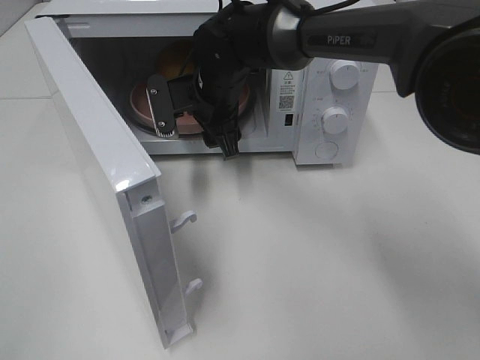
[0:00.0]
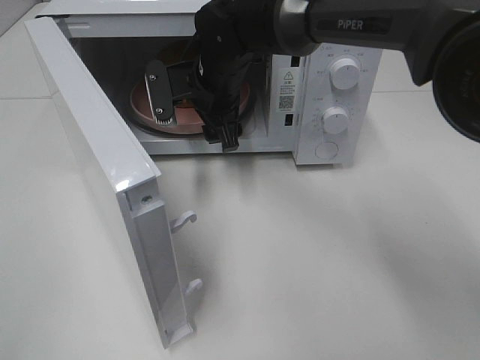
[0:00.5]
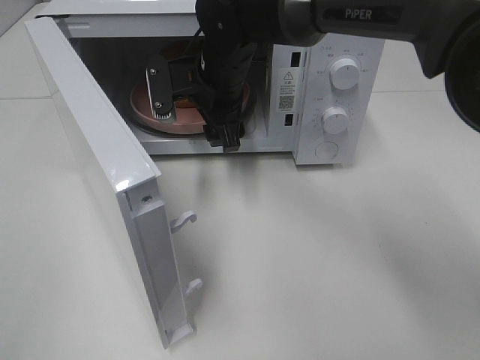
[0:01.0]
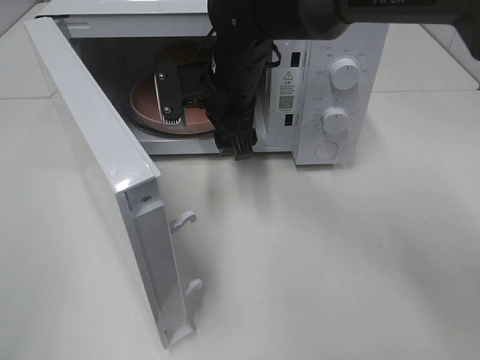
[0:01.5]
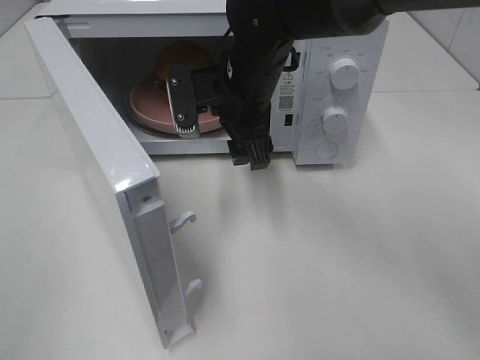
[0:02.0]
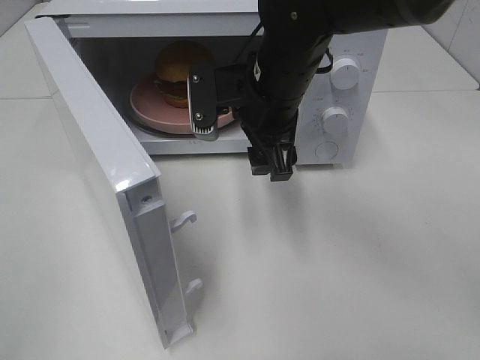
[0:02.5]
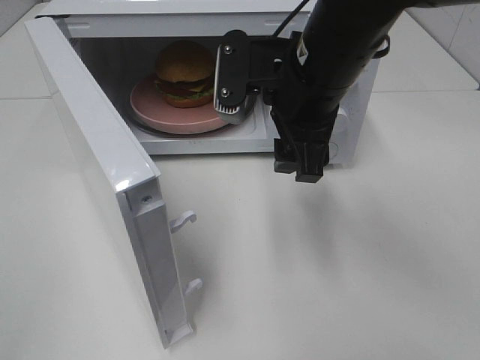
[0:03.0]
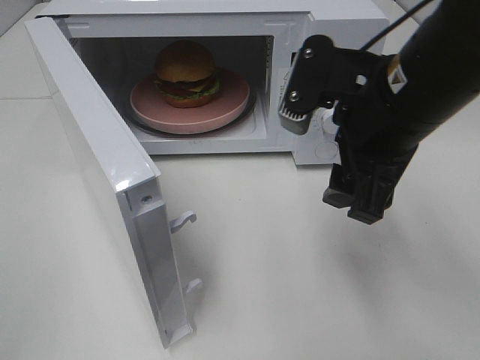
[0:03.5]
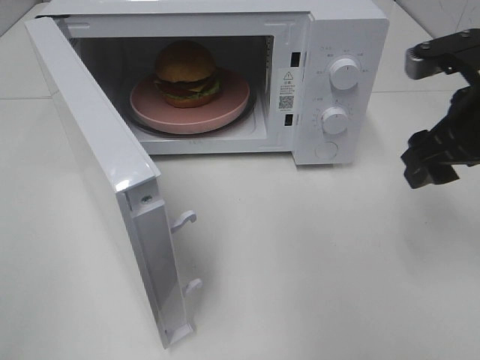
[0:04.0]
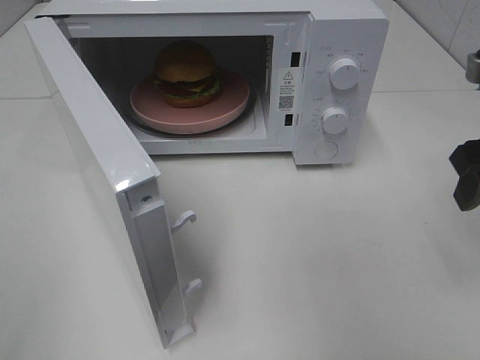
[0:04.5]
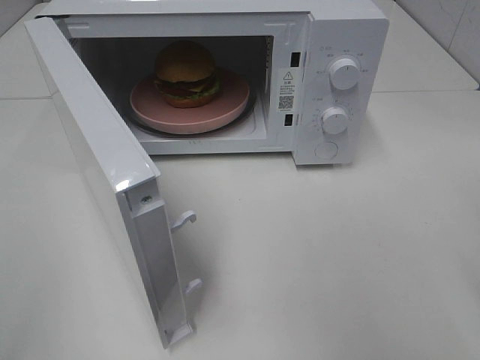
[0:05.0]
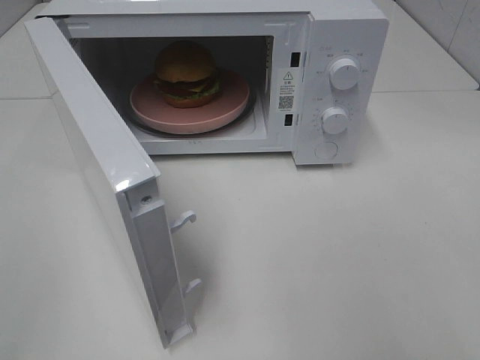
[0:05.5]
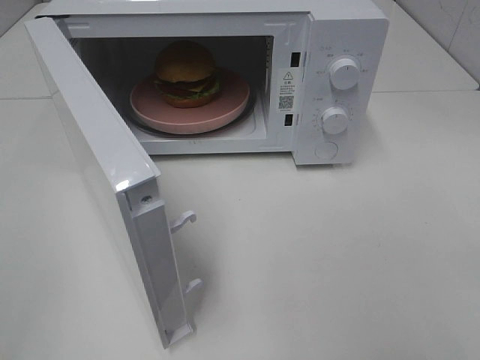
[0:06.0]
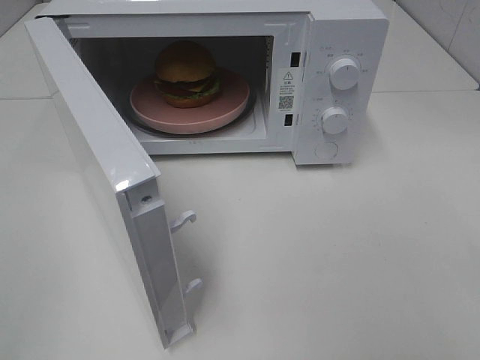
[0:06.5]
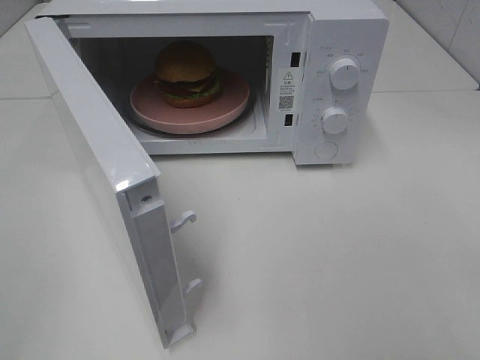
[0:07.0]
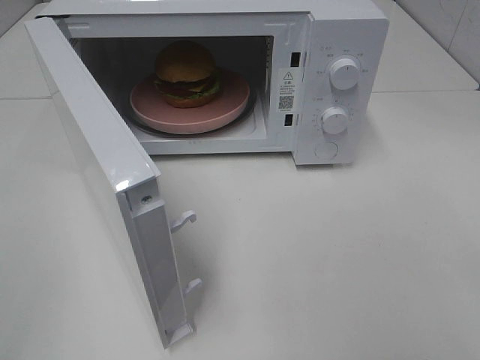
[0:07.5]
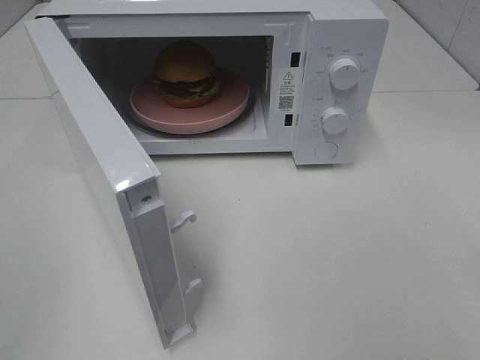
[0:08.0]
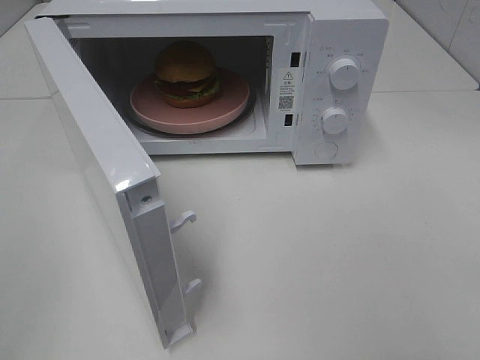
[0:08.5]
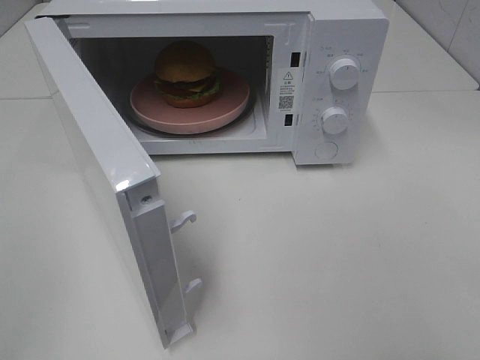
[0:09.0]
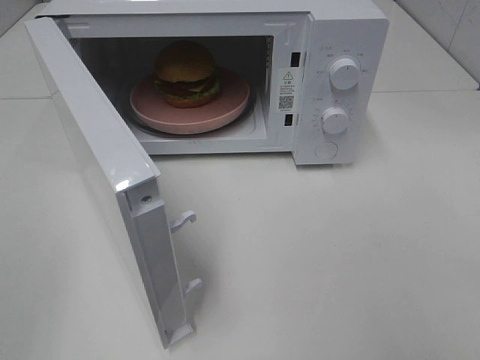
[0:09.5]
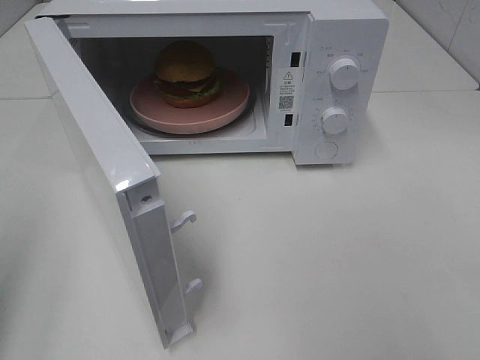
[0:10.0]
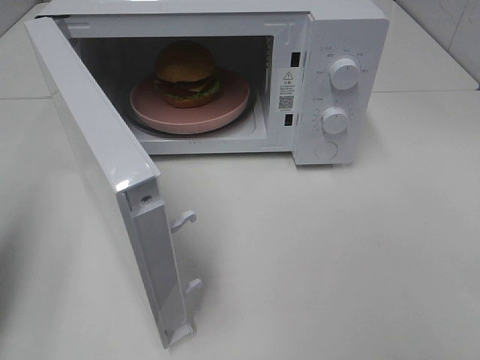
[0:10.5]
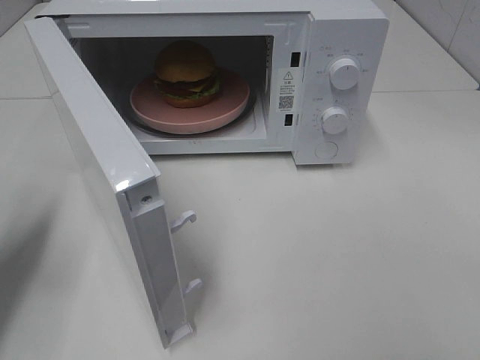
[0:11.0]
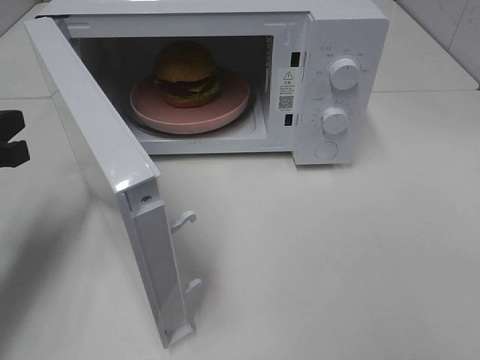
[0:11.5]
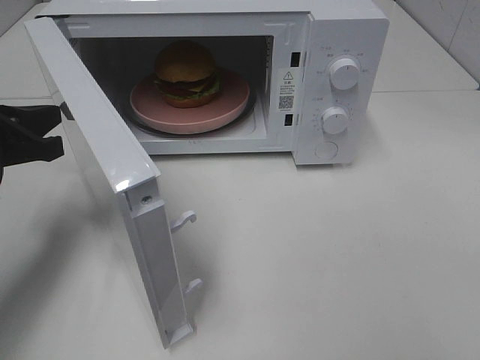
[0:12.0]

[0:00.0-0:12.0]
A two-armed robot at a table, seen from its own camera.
Task of the whole recording: Heat the burger.
0:00.0 to 0:02.0: The right gripper travels backward by roughly 5 cm.
0:02.0 to 0:04.0: The right gripper travels to the right and backward by some 25 cm.
0:04.0 to 0:06.0: The right gripper heads backward, covering roughly 25 cm.
0:10.0 to 0:12.0: The left gripper shifts approximately 20 cm forward and downward.

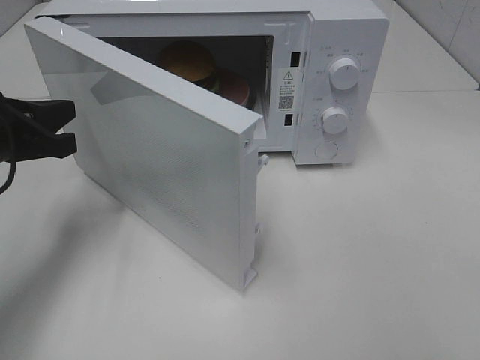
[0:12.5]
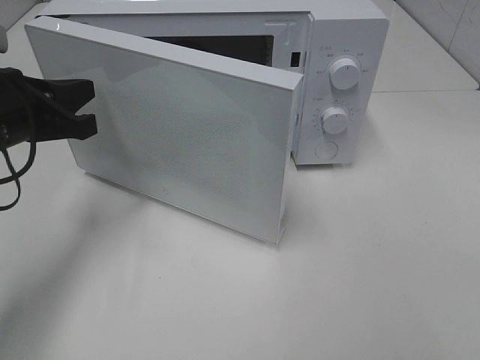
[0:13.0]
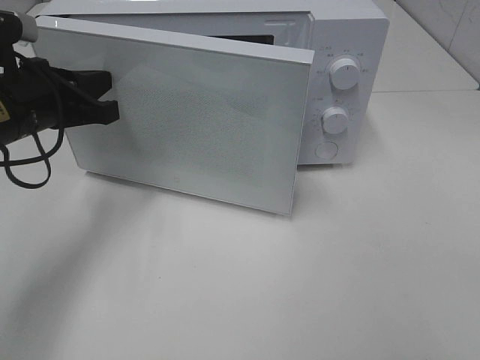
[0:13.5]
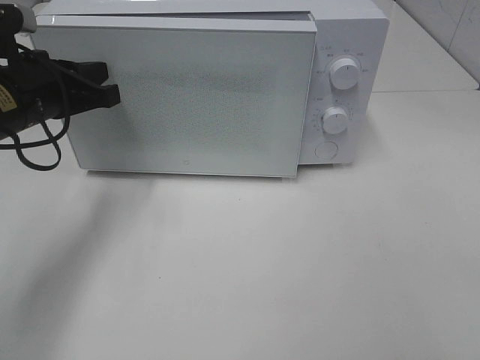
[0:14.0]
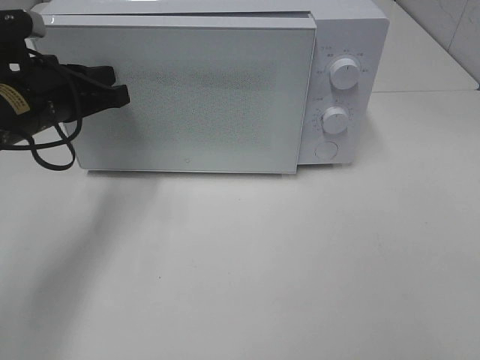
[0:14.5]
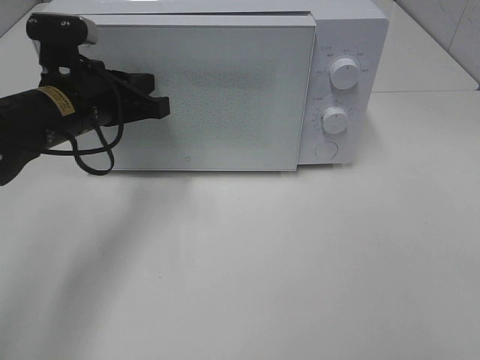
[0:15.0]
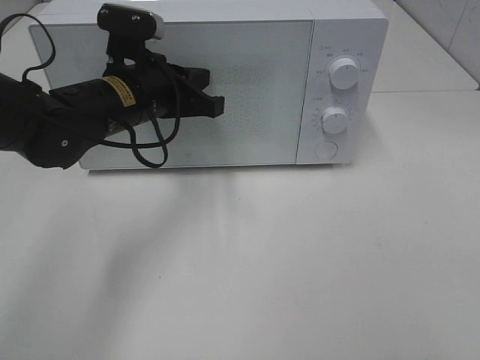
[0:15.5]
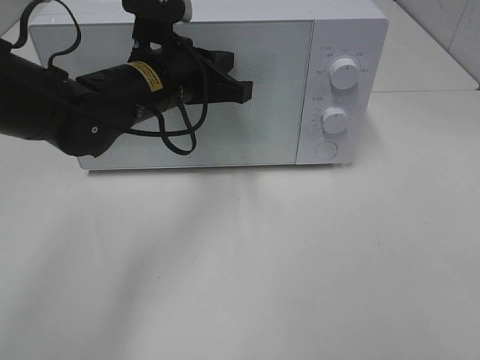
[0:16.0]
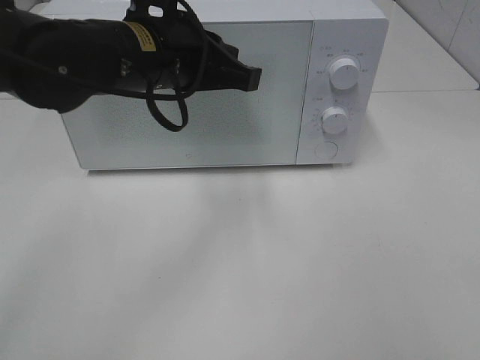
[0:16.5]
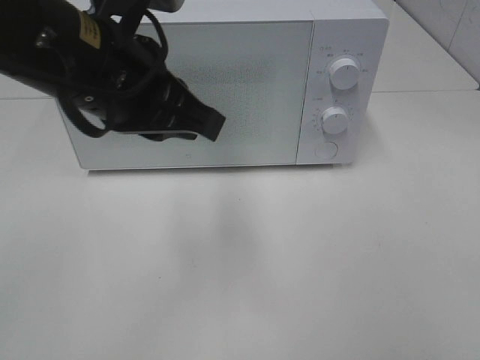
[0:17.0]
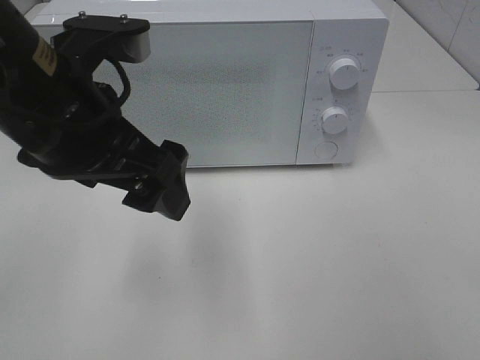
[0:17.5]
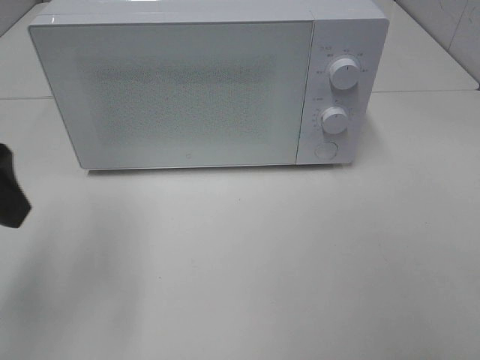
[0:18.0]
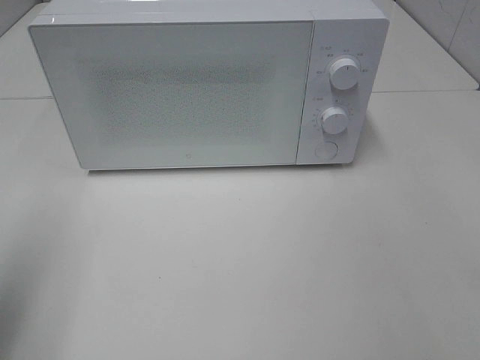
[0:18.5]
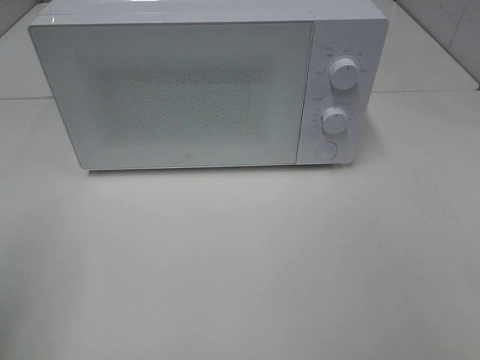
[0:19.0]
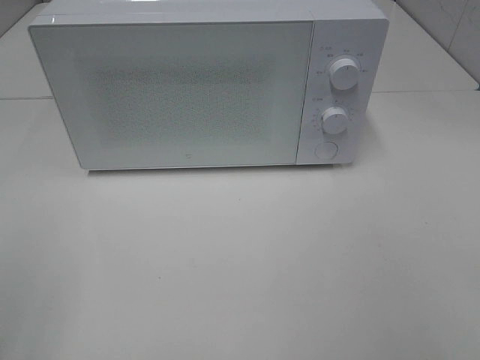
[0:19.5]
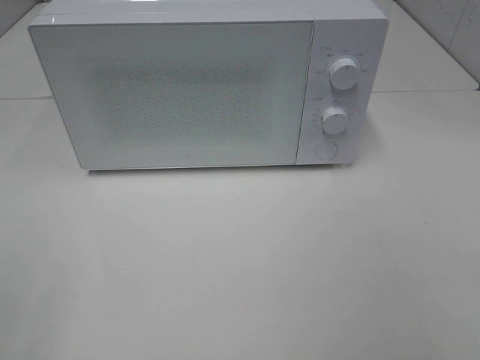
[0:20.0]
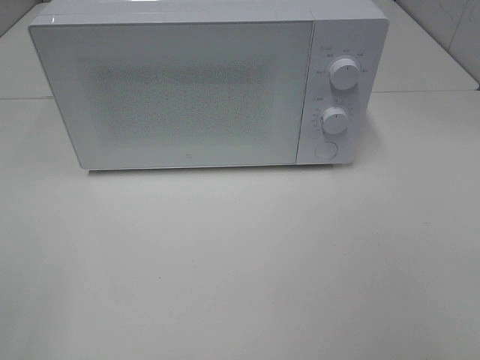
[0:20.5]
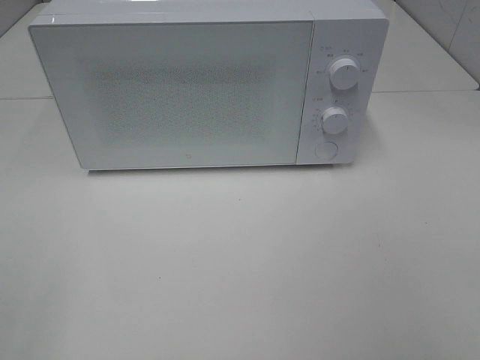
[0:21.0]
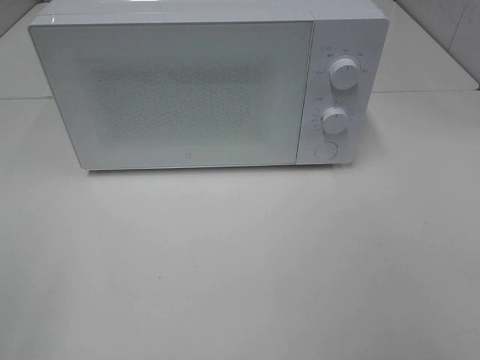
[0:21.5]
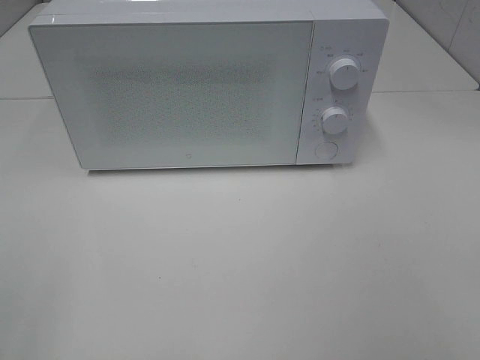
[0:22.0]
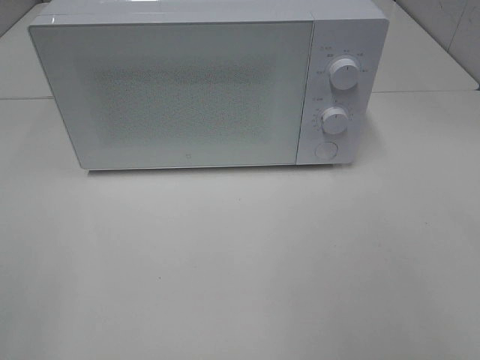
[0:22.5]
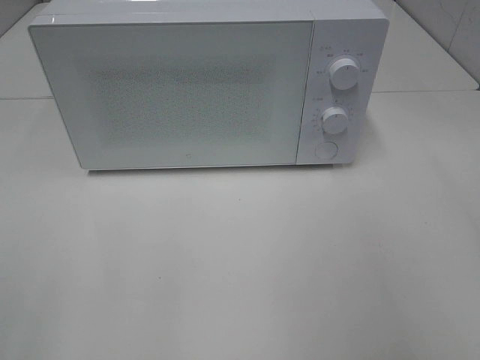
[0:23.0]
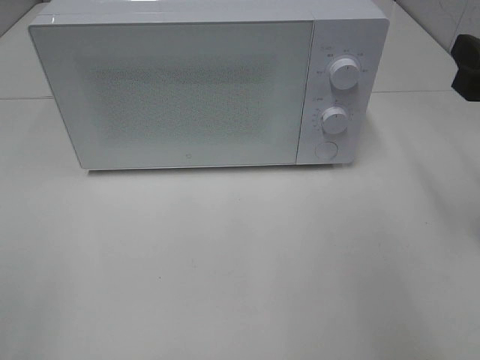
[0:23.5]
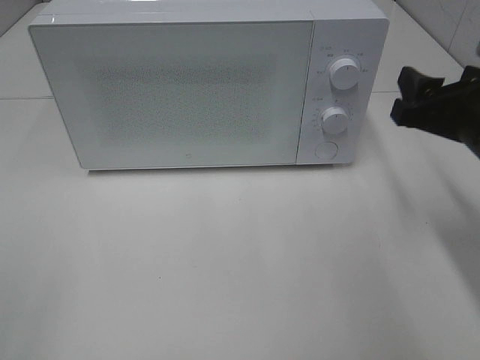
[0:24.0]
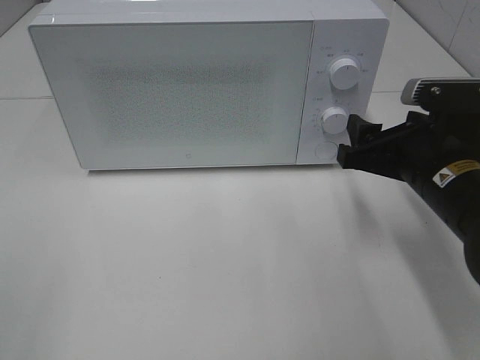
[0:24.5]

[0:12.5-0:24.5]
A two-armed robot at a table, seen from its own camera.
Task of the whole recording: Heat the burger.
Step, 0:12.5 to 0:15.5: Left hand: close the microwave door.
0:12.5 to 0:14.5: The left gripper shifts roughly 5 cm forward.
0:14.5 to 0:16.5: The left gripper heads to the right and upward, covering approximately 15 cm.
0:16.5 to 0:18.5: The left gripper travels to the left and backward by about 30 cm, and opens up.
0:18.5 to 0:20.5: The left gripper moves backward, approximately 15 cm.
0:22.5 to 0:24.5: The right gripper goes some 30 cm forward, downward and to the left.

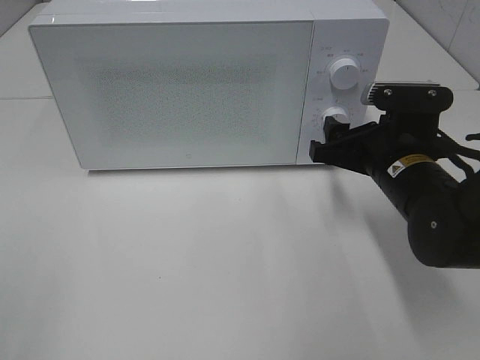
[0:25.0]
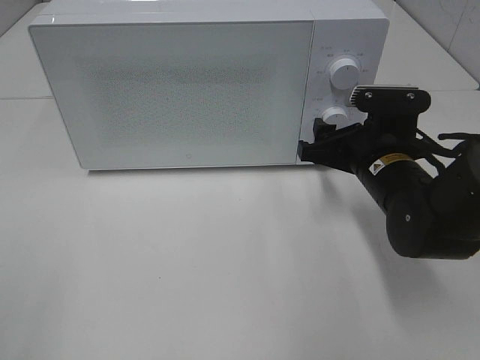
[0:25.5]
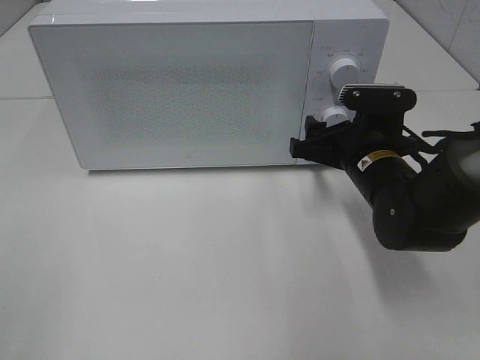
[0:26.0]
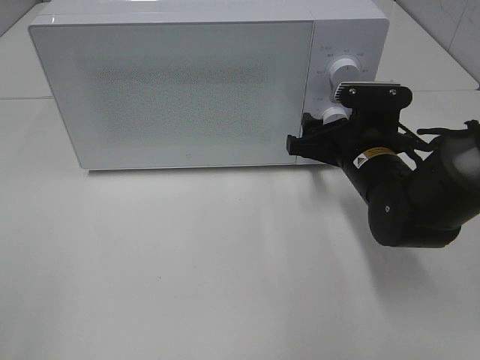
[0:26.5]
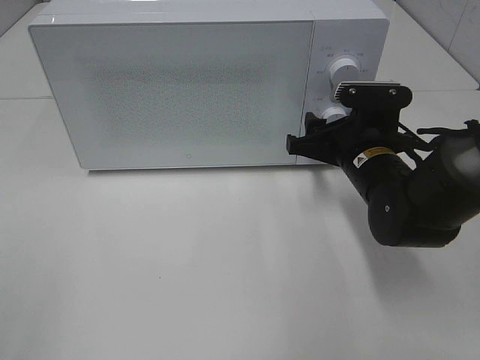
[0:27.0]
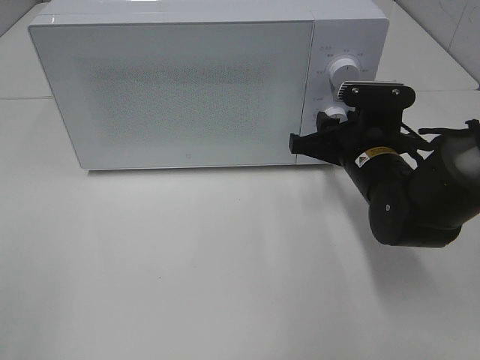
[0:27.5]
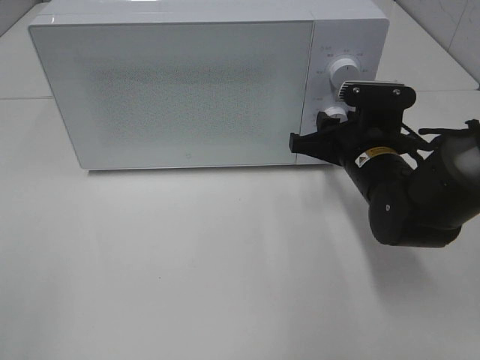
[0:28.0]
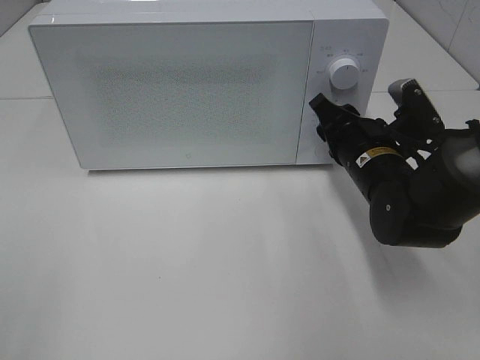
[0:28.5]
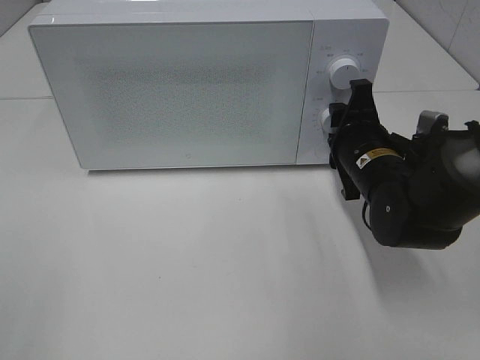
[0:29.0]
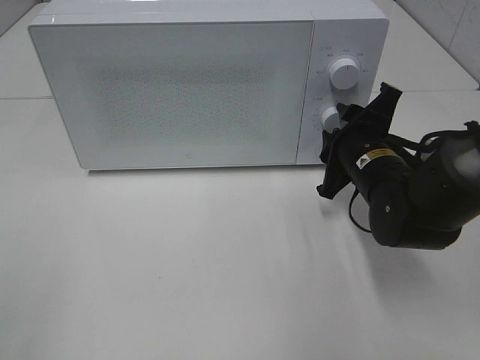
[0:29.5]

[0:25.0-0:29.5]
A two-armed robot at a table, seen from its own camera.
Task of the whole recording: Heat the burger.
0:25.0 to 0:27.0: The grippers make only small movements.
